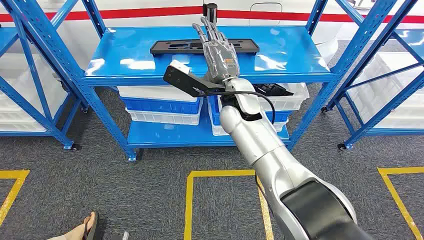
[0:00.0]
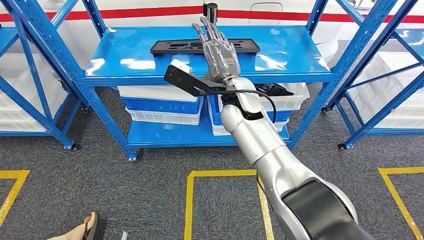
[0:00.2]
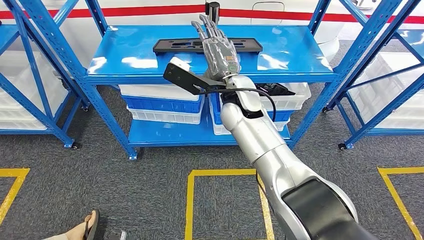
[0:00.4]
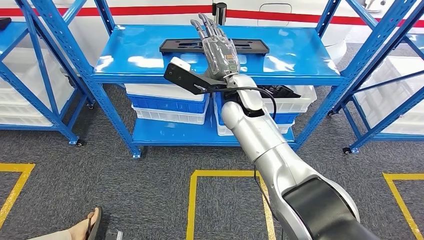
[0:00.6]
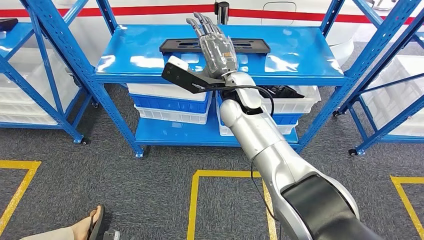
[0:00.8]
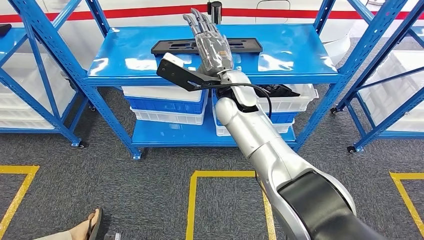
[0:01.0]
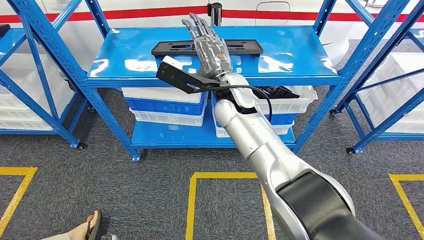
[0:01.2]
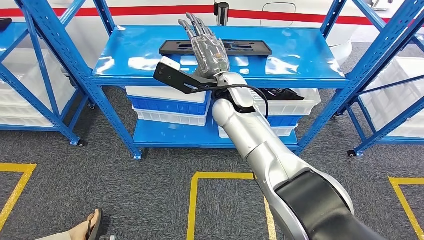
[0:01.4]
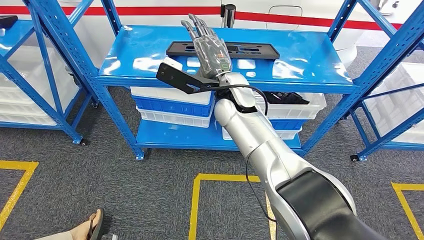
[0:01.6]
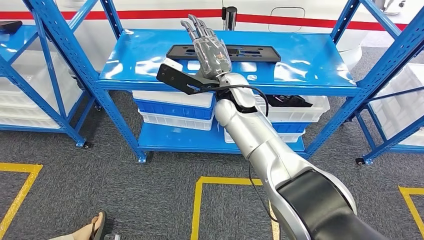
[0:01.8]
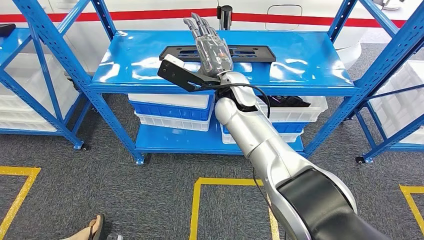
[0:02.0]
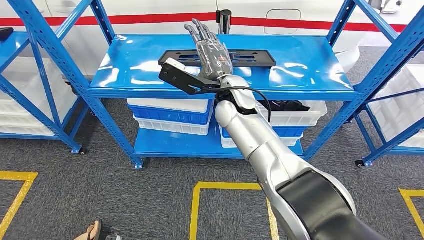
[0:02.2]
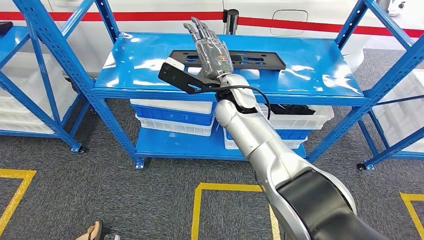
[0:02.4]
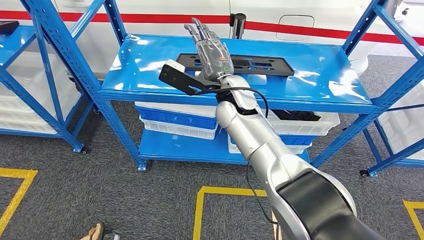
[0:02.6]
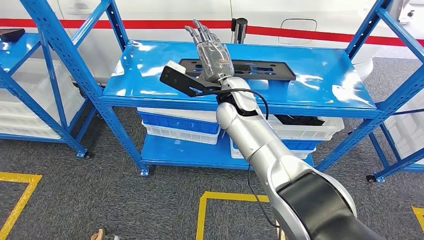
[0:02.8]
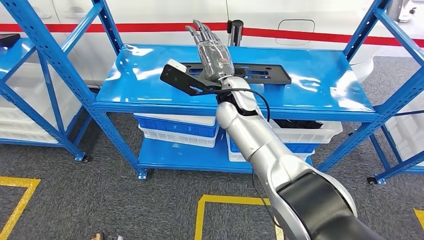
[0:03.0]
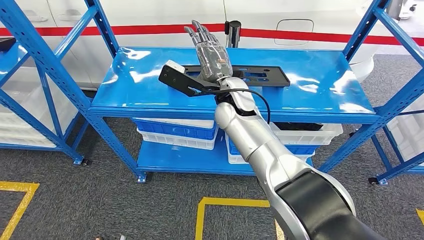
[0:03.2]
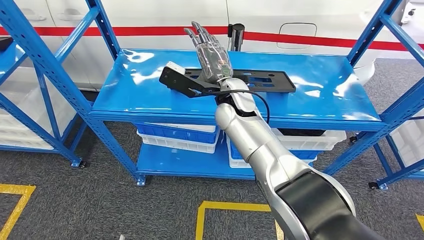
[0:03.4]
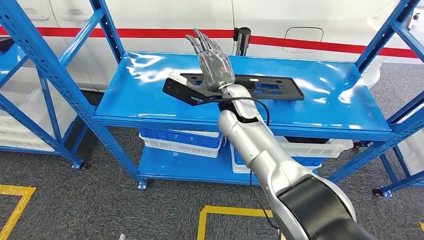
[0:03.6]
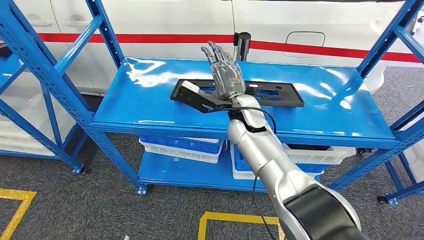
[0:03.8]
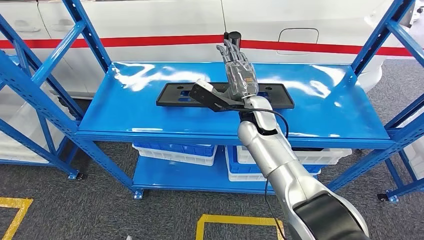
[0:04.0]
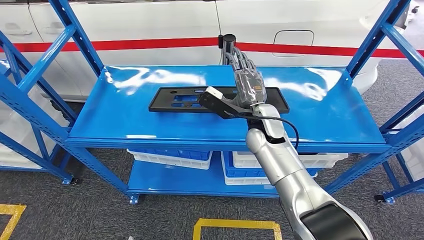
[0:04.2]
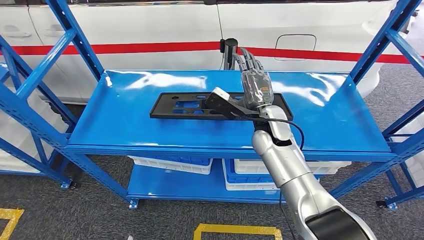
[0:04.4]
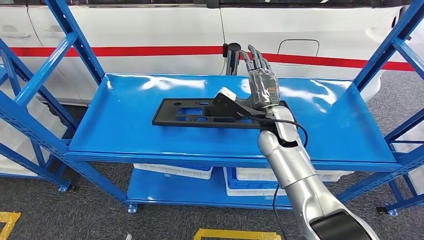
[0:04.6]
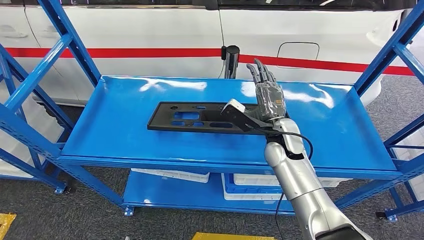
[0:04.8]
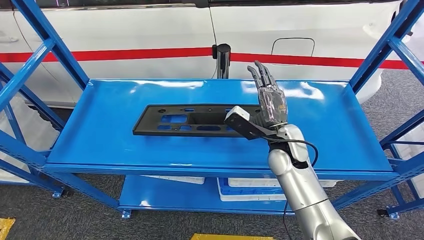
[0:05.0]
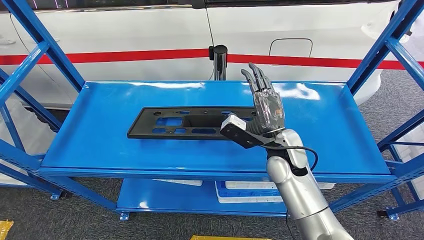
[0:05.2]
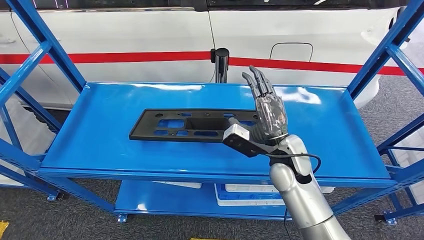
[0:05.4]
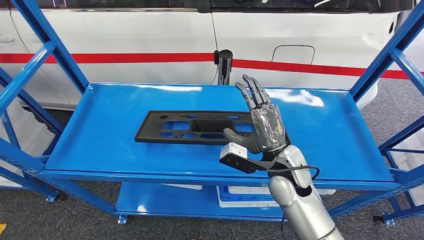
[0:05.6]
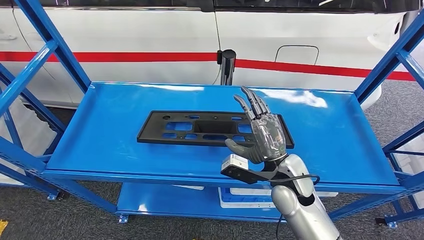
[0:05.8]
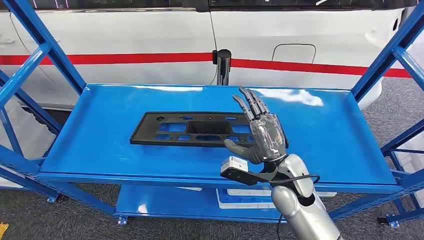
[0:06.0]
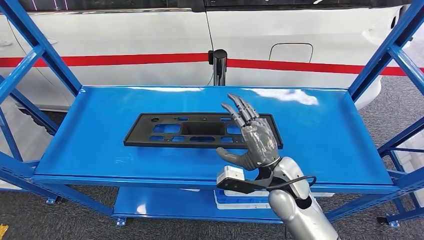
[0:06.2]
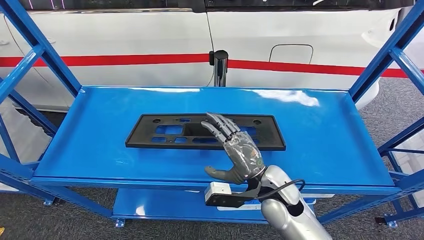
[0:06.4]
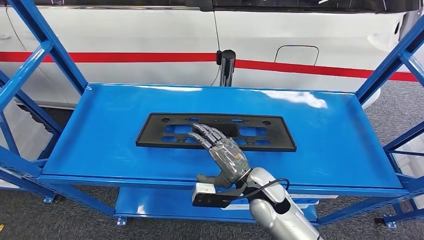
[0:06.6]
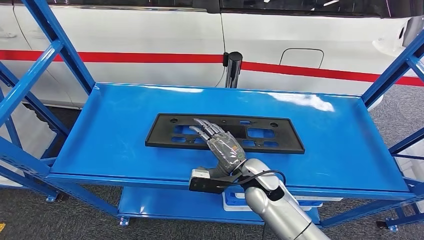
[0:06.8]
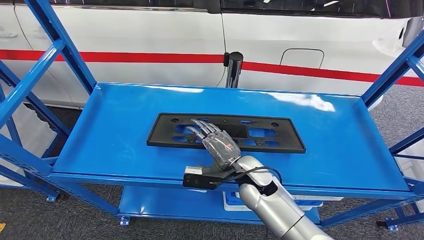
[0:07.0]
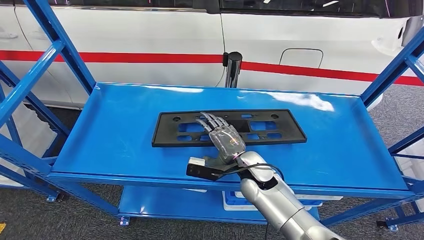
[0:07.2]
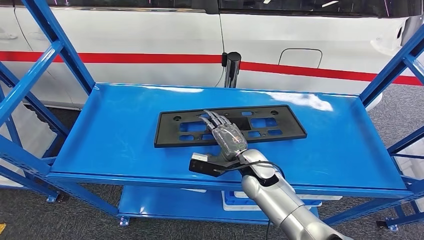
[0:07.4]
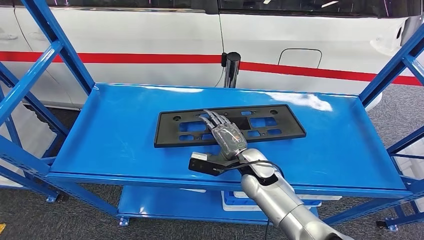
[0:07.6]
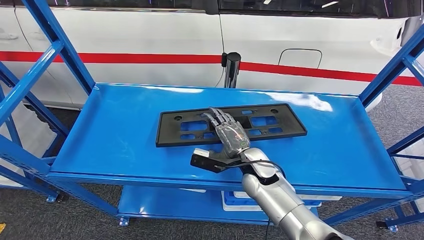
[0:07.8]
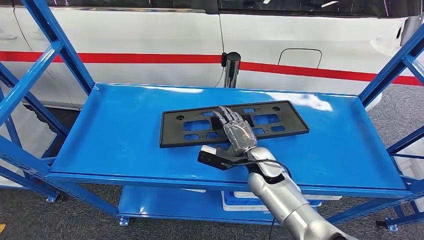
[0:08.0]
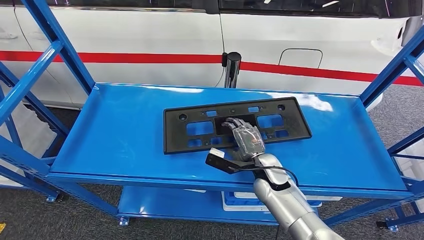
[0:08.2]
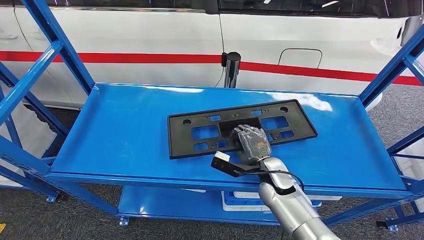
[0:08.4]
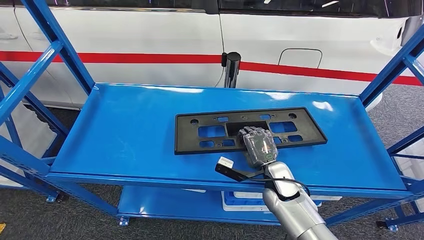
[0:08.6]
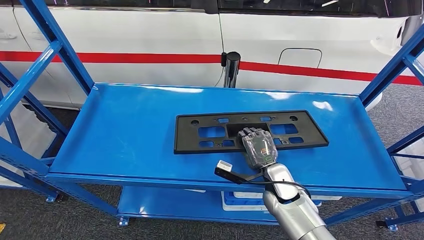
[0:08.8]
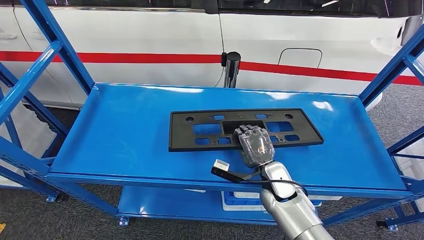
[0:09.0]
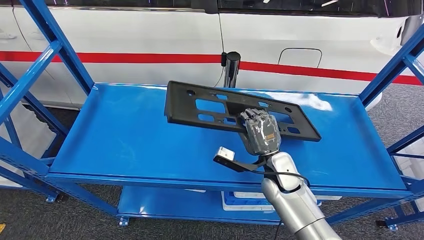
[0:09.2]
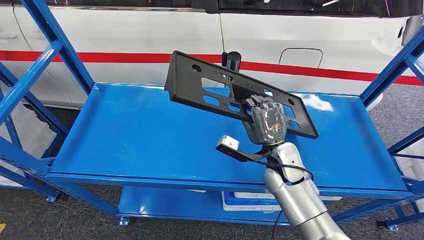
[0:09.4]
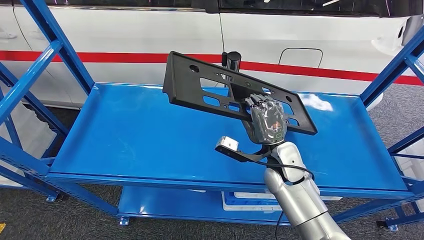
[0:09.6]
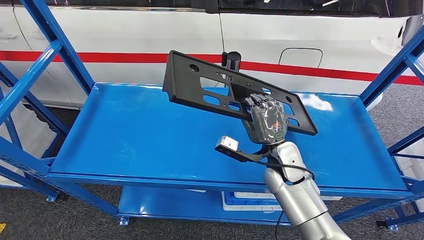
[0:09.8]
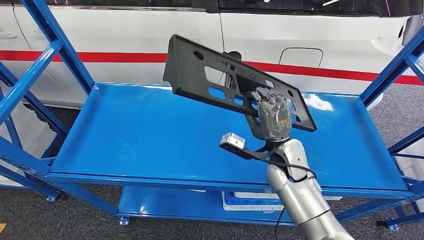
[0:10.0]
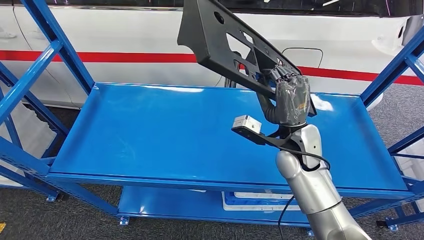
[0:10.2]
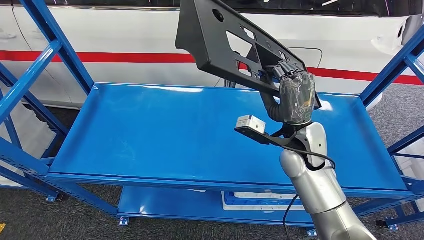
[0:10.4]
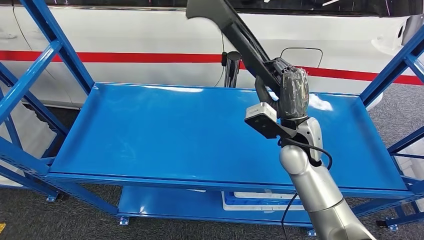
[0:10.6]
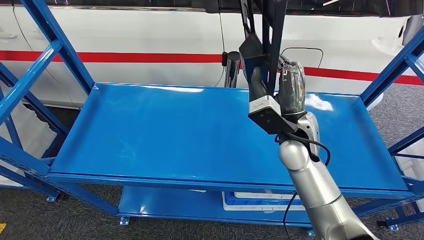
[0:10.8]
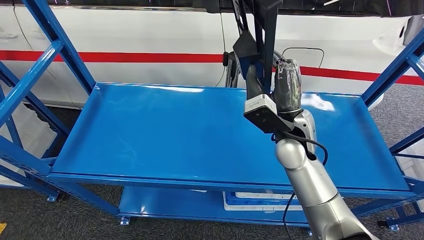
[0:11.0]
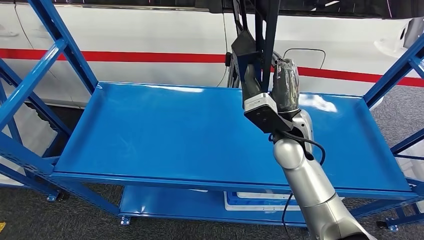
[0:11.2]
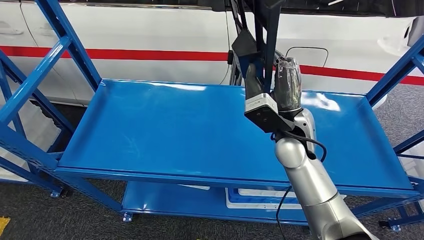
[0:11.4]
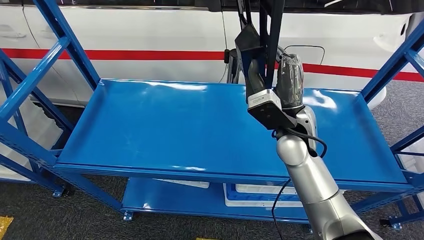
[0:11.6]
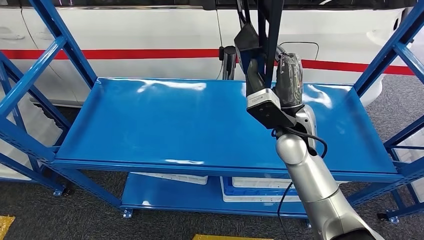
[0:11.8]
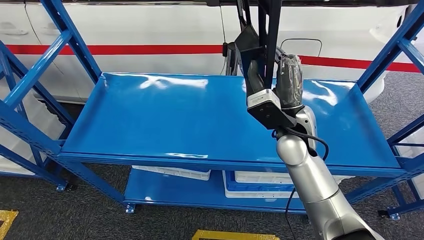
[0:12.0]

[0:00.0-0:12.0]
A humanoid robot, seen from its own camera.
0:07.6 to 0:09.0: The right hand shifts about 5 cm to the right.

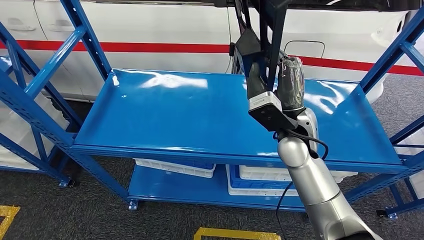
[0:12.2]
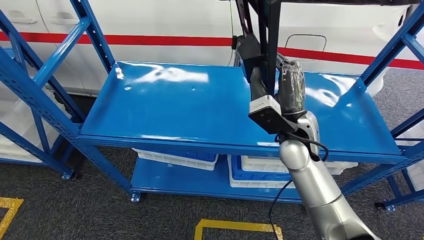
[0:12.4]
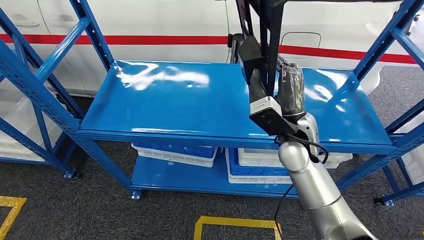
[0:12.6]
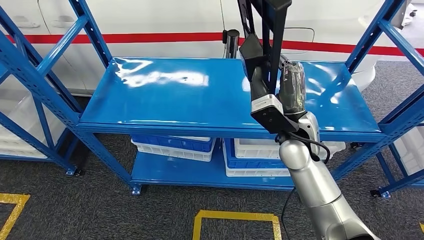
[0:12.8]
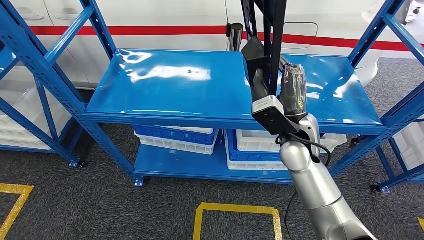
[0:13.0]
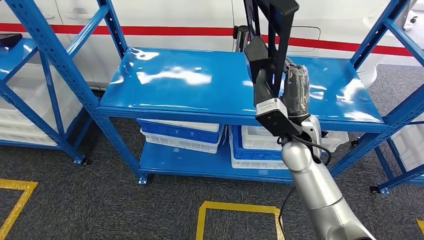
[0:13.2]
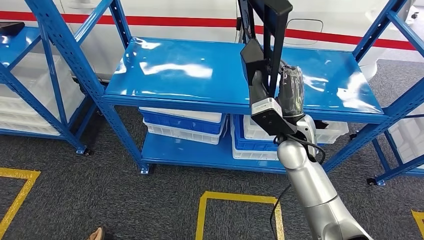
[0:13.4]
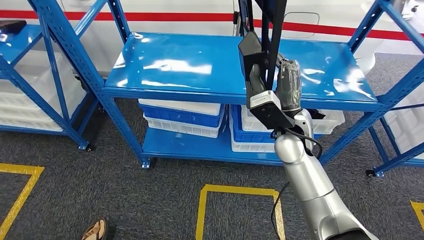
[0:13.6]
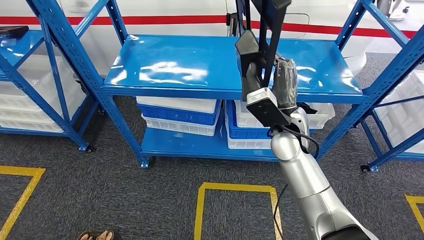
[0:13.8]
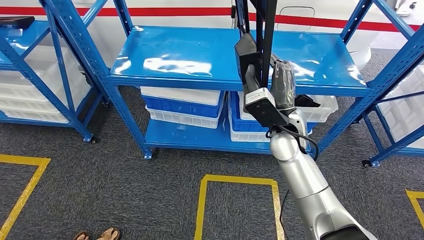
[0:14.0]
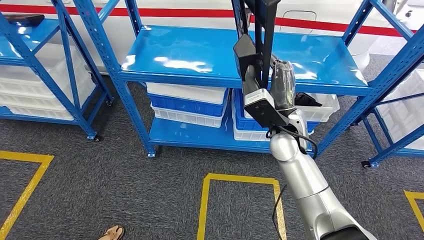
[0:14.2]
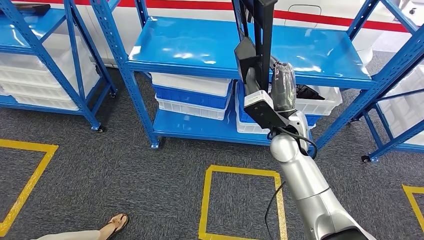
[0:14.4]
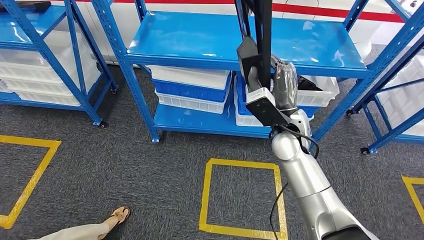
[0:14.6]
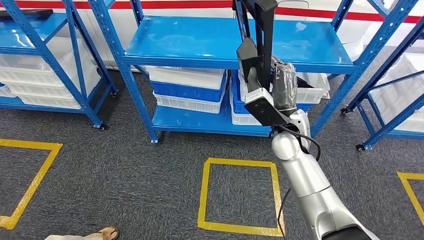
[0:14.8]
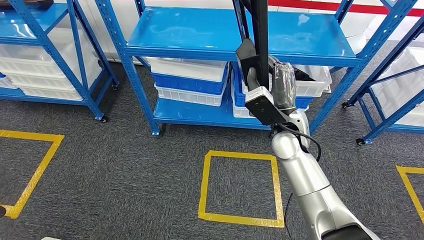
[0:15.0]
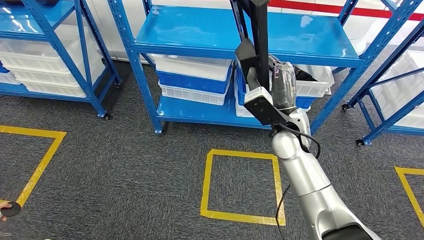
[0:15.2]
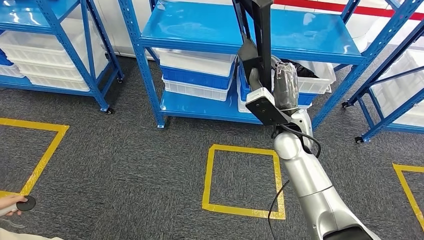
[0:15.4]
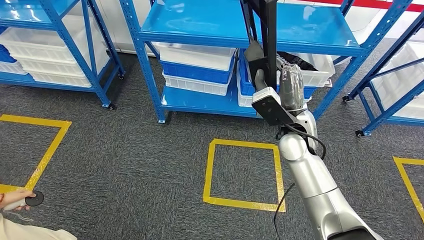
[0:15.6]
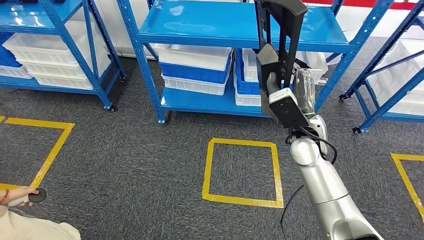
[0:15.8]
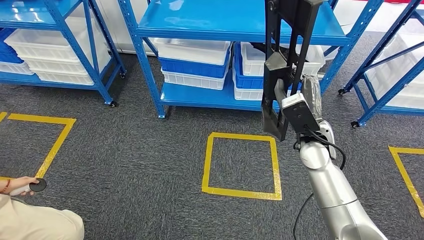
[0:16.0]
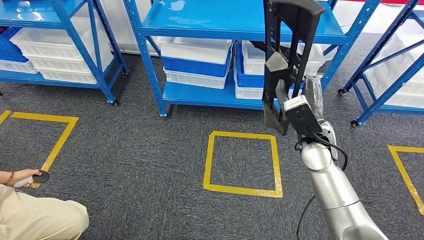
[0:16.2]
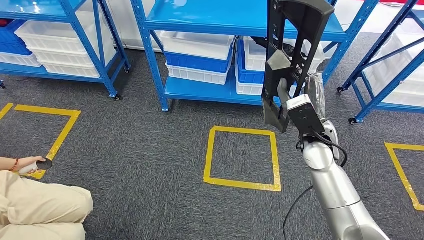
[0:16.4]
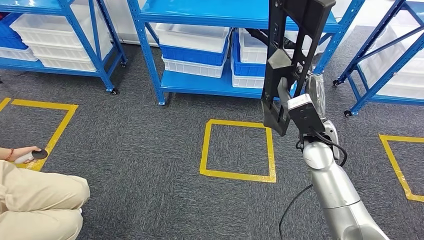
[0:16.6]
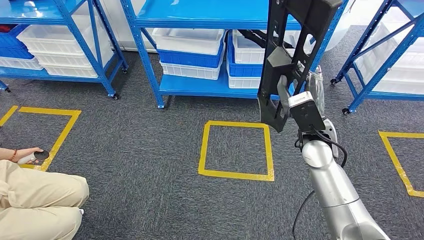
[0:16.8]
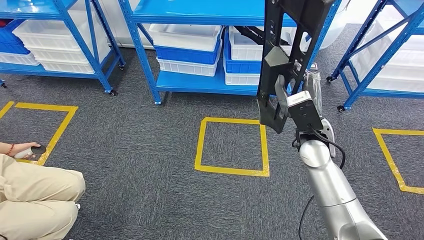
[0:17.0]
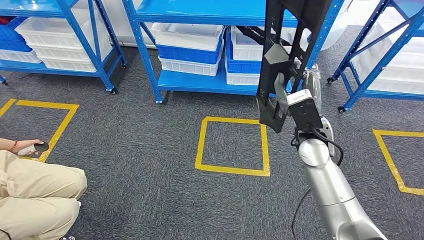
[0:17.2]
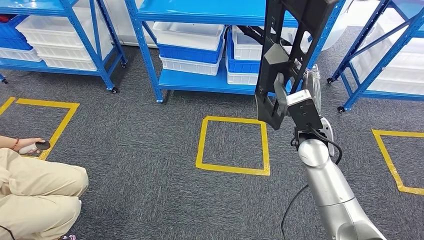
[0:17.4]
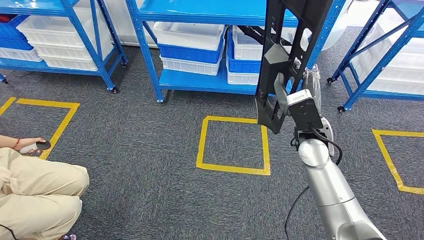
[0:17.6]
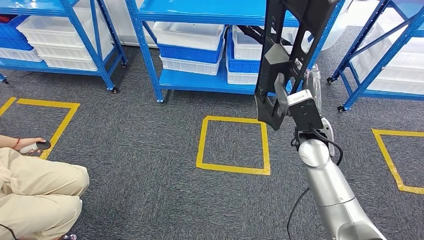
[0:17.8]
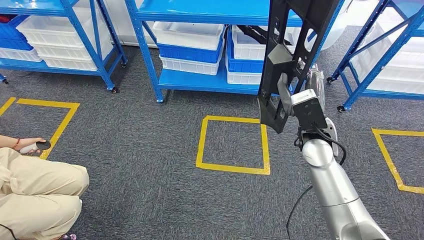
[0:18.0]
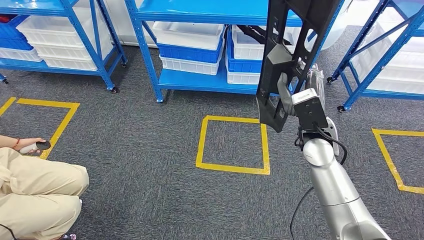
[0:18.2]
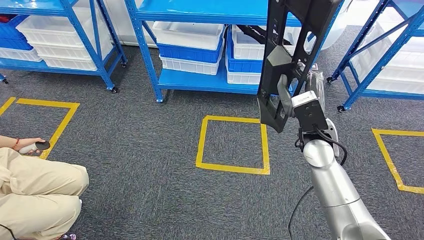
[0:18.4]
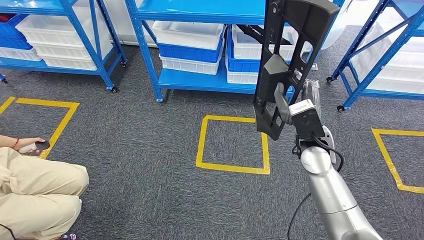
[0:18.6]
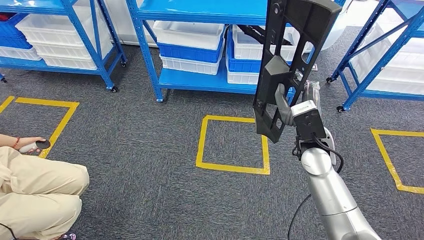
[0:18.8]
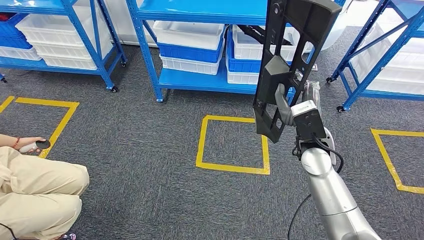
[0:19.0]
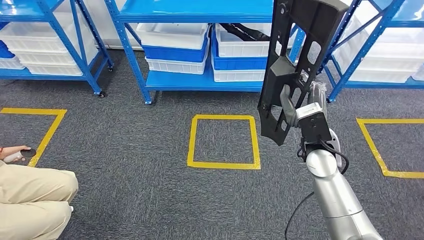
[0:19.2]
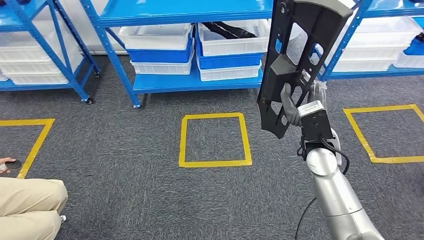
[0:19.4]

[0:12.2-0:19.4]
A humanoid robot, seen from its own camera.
Step, 0:12.2 to 0:14.6: Pick up the large material from the shelf.
